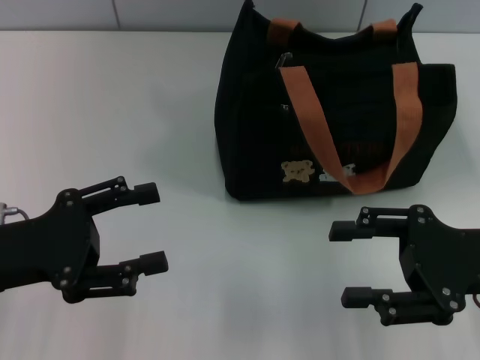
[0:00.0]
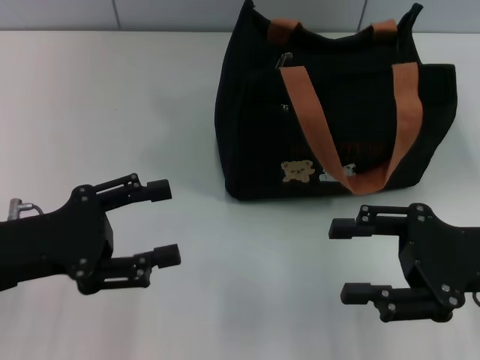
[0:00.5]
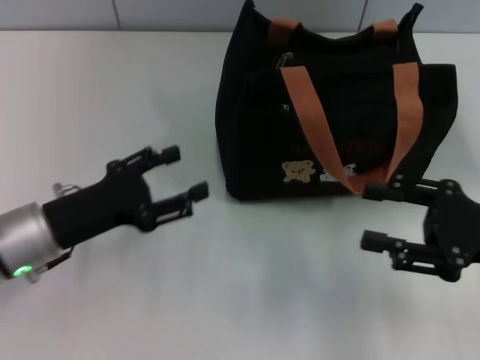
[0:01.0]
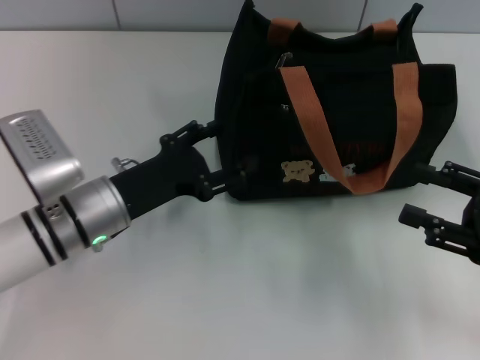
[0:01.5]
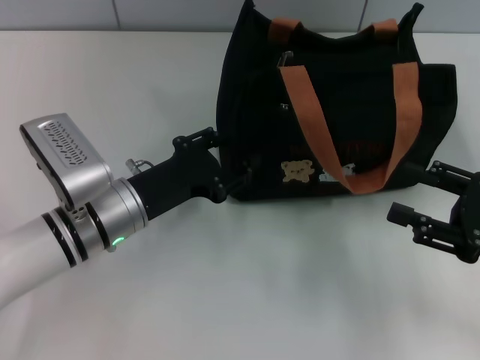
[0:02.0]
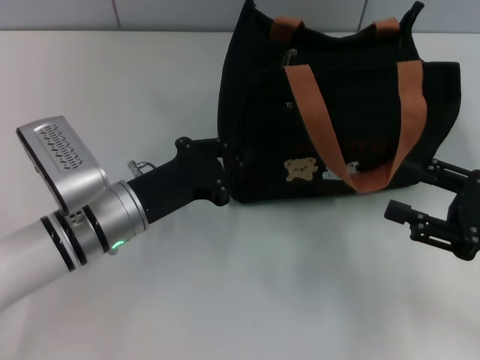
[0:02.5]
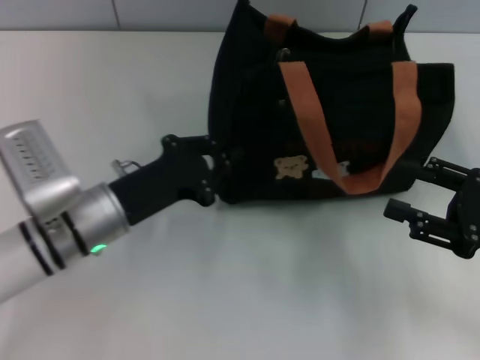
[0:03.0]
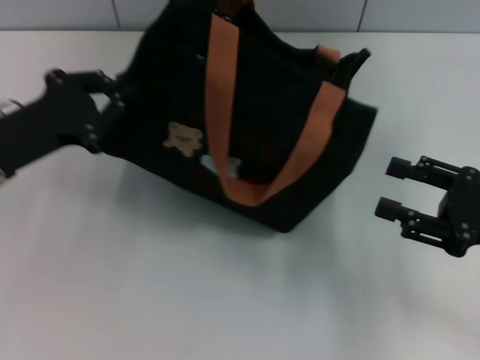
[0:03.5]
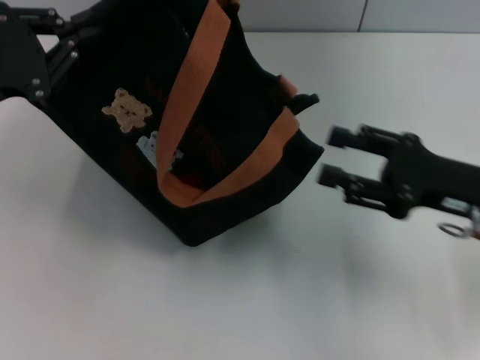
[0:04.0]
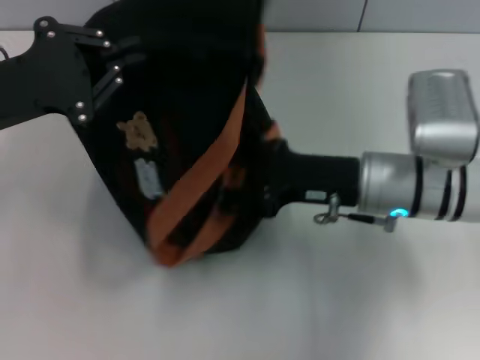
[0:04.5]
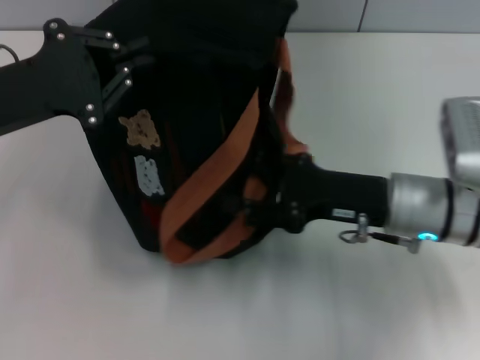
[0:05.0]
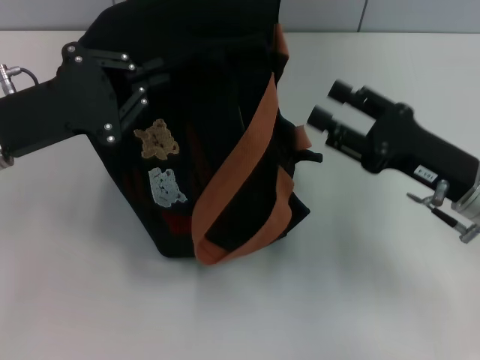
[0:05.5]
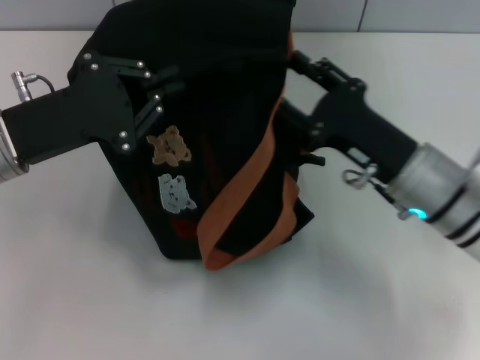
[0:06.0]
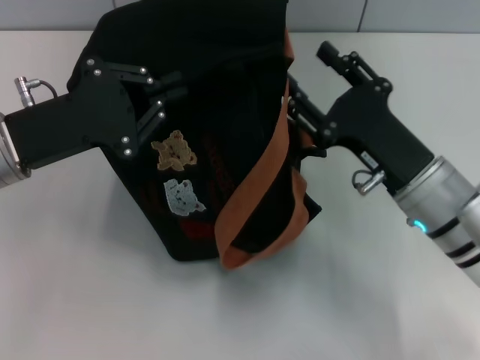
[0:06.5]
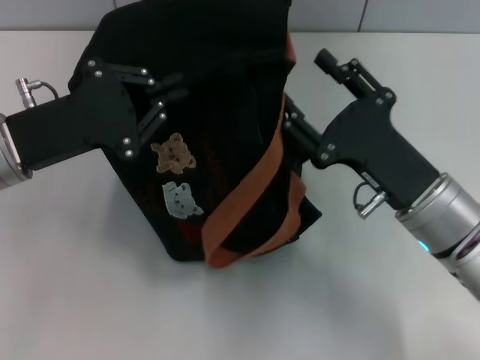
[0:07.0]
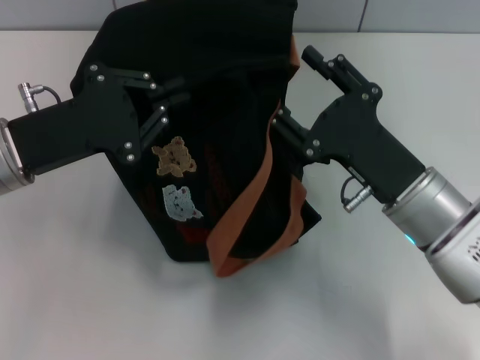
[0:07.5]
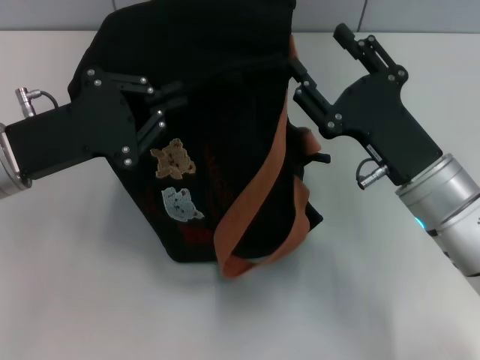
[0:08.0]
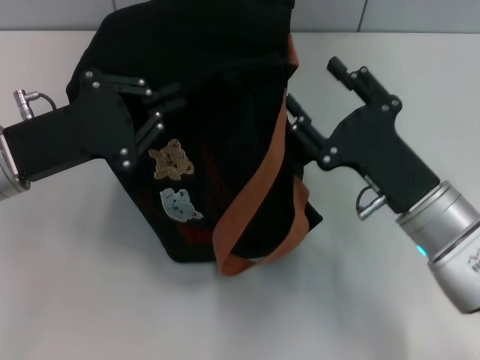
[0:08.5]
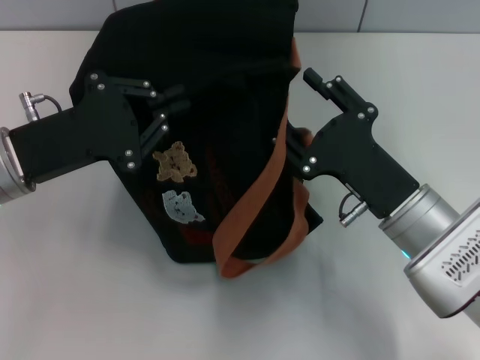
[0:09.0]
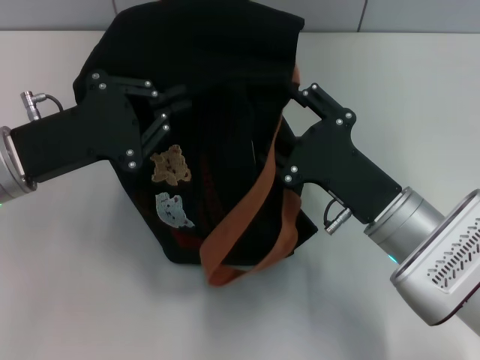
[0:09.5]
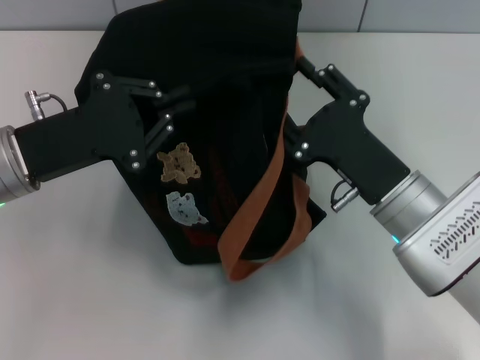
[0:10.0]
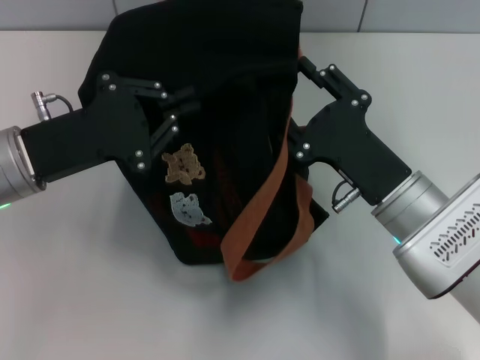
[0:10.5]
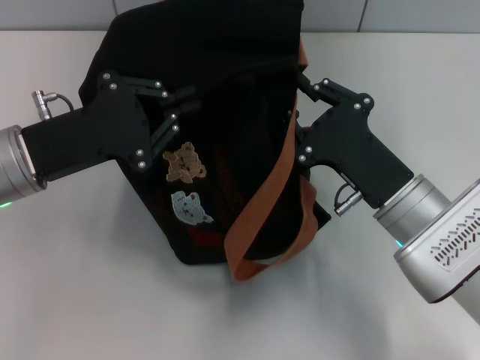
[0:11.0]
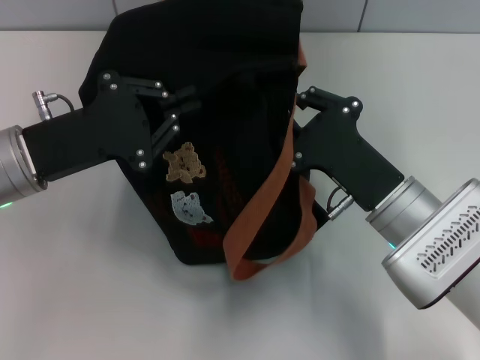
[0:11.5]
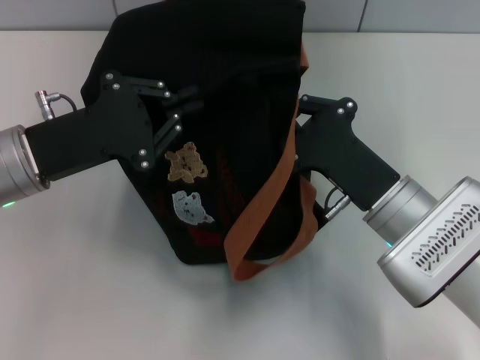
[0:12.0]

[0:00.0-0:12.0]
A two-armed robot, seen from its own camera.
0:00.0 to 0:02.0: The right gripper travels to the right by some 5 cm. Meanwhile the left gripper moves to the right, forward and downward, some 15 cm.
0:02.0 to 0:04.0: The left gripper heads to the left and upward, covering approximately 20 cm, and closes; the right gripper travels to the left by some 5 cm.
0:04.0 to 0:06.0: The left gripper heads to the right, covering roughly 5 cm; the right gripper swings left and right, roughly 10 cm each way, with 2 reversals.
0:08.0 to 0:10.0: There are only small adjustments of the grippers.
0:10.0 to 0:12.0: The right gripper closes.

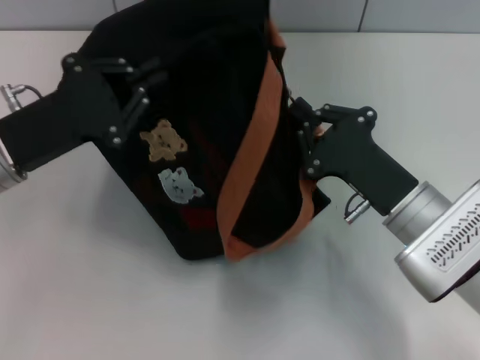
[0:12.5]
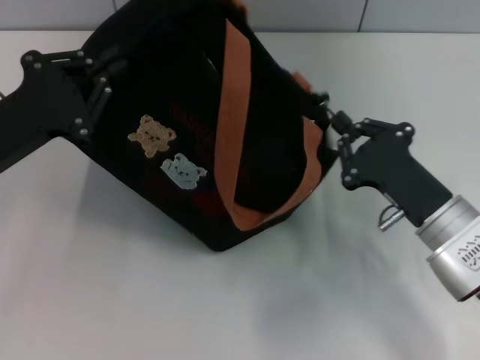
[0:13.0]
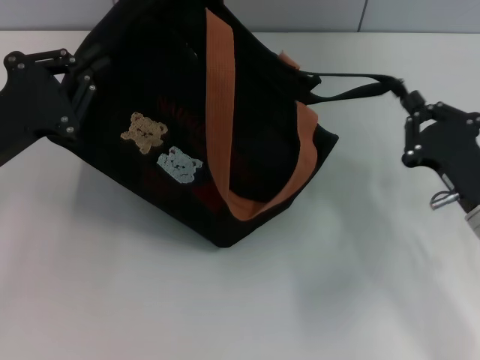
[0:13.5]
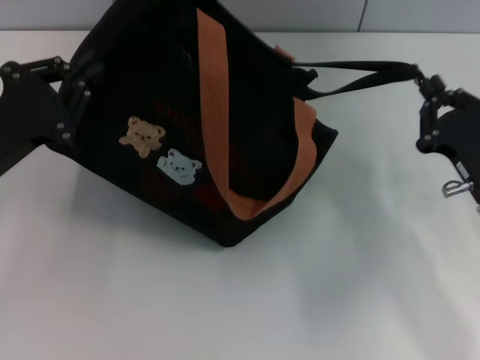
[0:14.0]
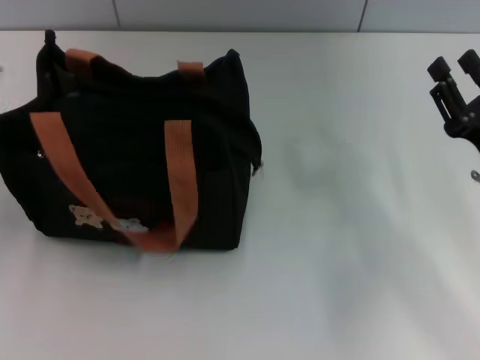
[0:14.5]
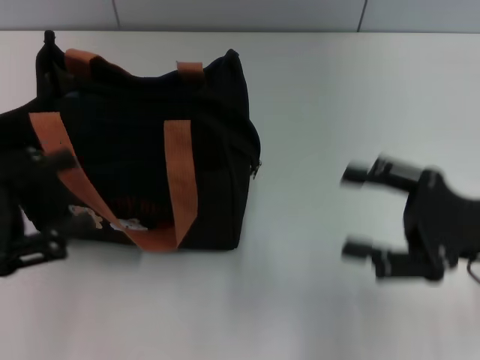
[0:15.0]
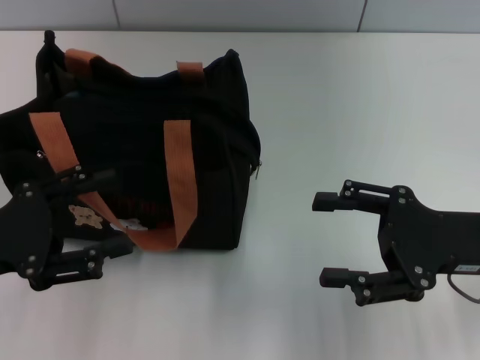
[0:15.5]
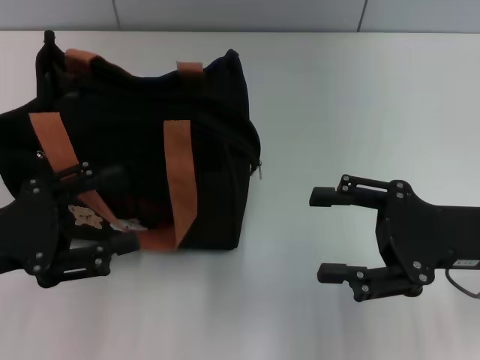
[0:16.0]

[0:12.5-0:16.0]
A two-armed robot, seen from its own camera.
0:12.5 to 0:14.5: The left gripper heads backward and to the left, covering some 10 cm. Meanwhile the right gripper heads to the right, covering some 10 cm.
0:14.5 to 0:16.0: The right gripper changes place by approximately 5 cm, and opens, while the left gripper opens.

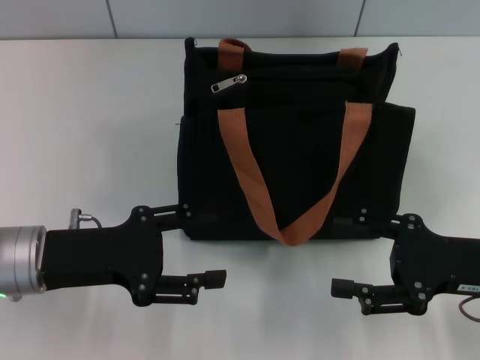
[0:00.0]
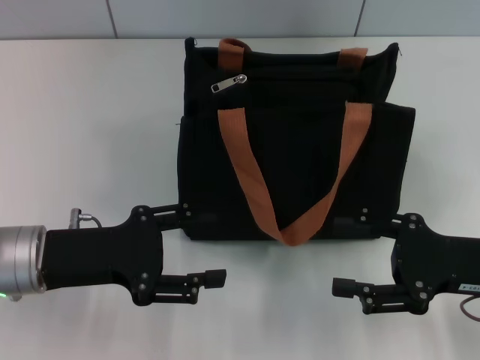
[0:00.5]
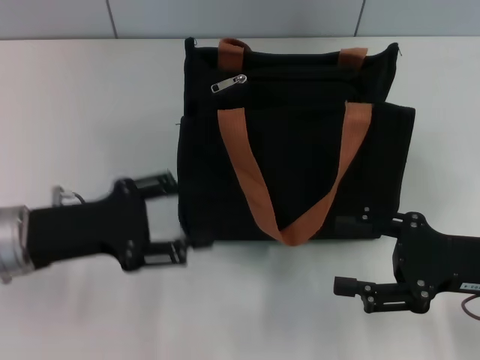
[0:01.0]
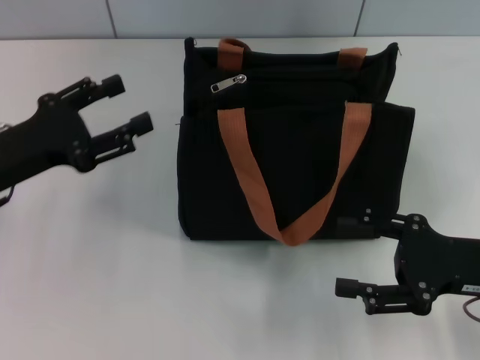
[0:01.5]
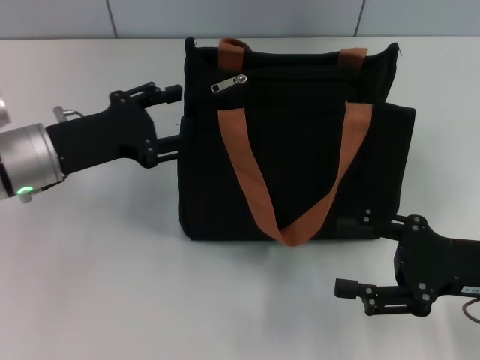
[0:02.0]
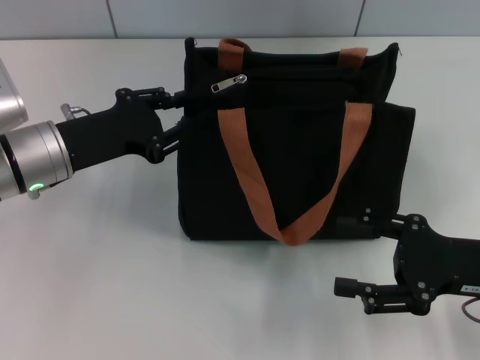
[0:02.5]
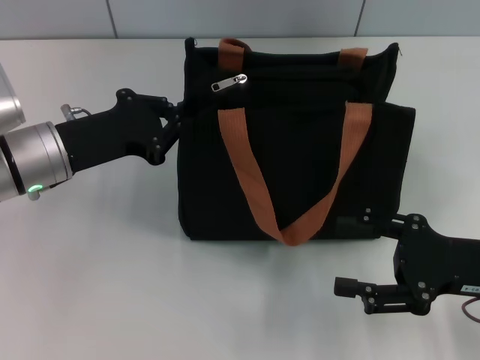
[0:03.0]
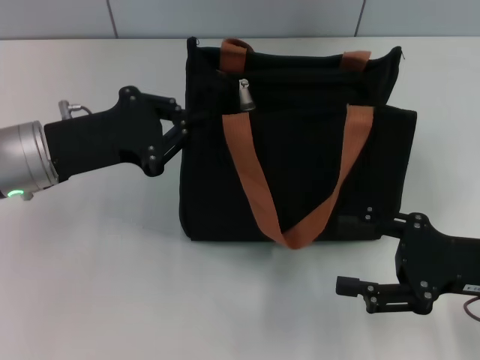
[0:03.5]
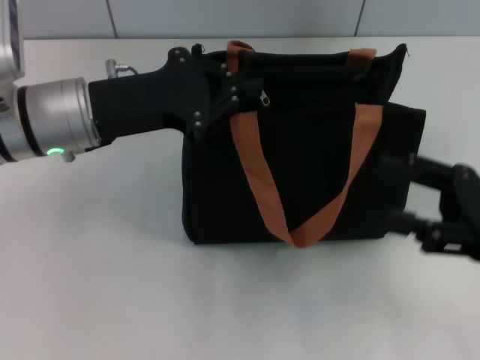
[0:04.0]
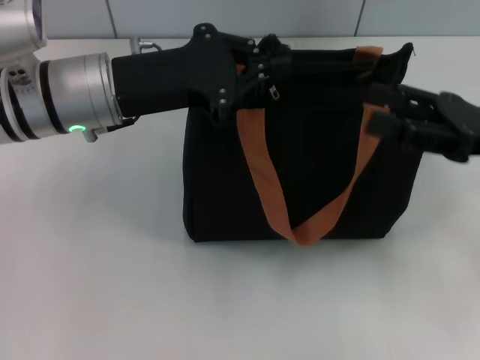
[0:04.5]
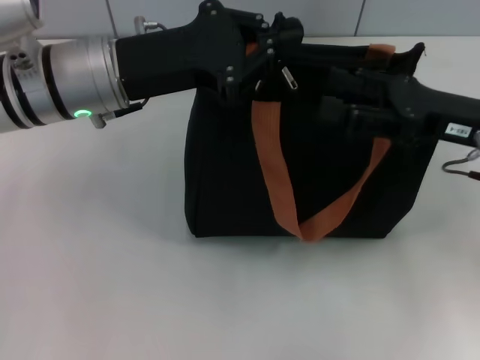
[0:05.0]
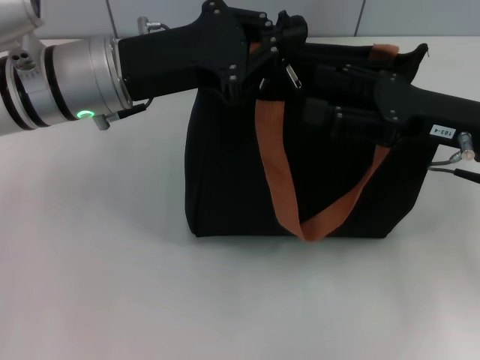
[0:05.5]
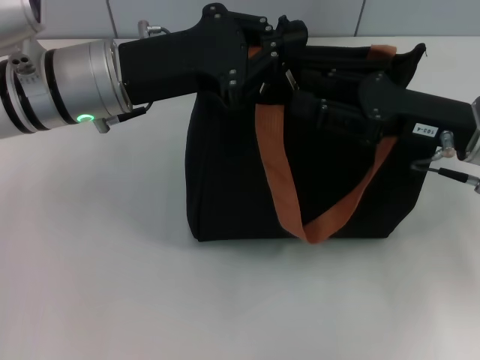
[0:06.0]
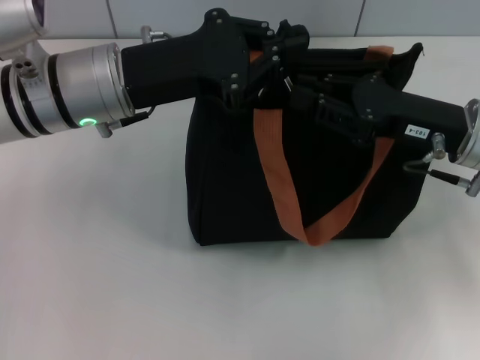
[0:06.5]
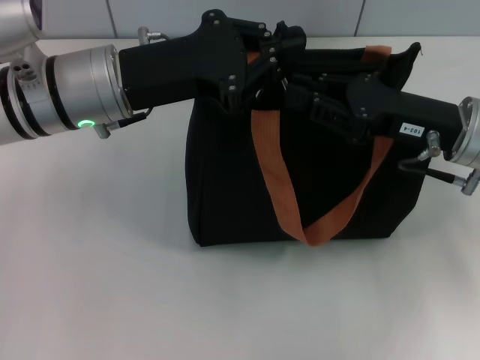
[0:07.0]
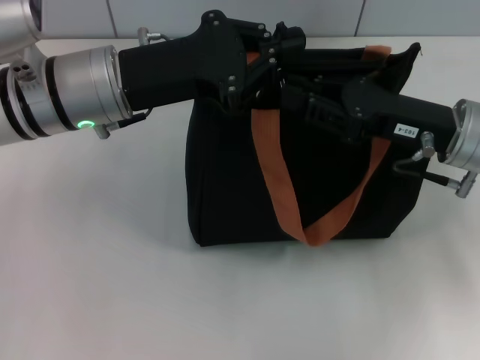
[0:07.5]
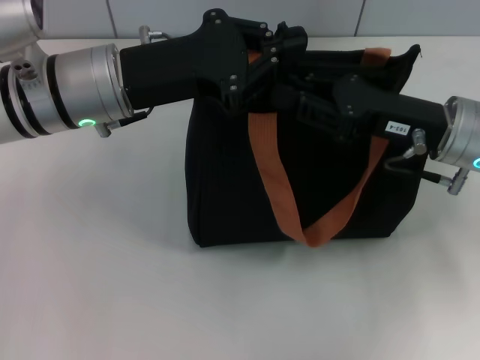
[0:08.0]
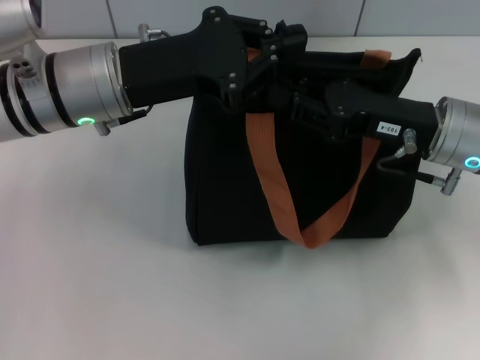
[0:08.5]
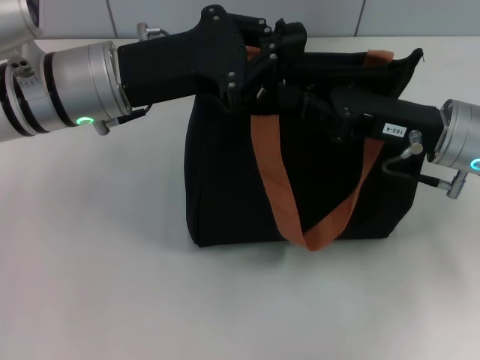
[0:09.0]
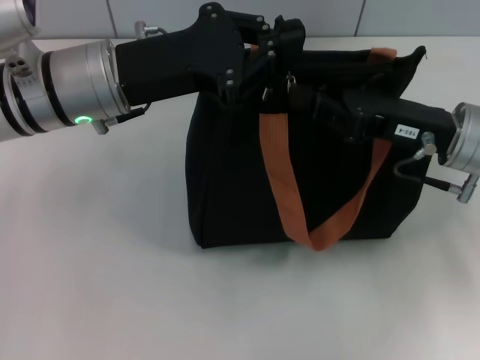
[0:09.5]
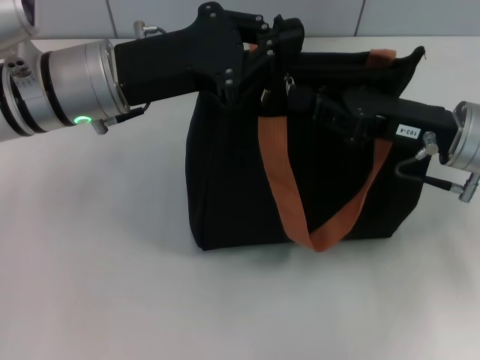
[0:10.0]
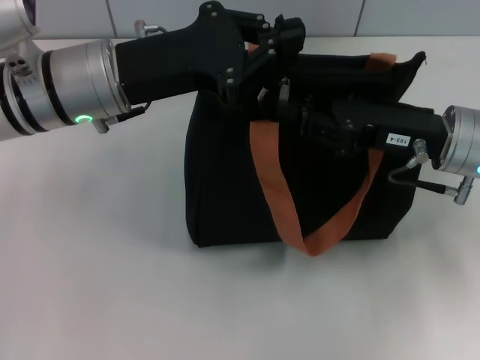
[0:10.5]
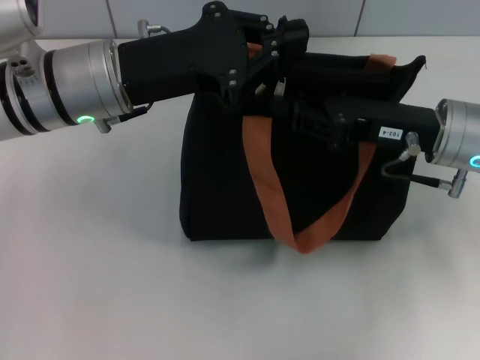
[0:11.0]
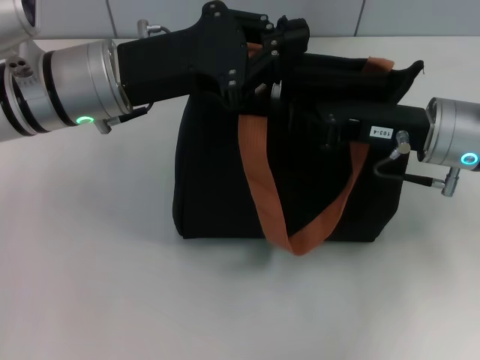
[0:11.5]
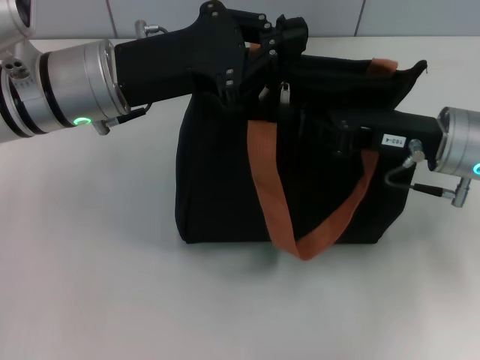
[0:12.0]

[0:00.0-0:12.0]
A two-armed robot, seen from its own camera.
0:00.0 to 0:02.0: The left gripper shifts about 10 cm forward.
0:02.0 to 0:04.0: The left gripper moves roughly 5 cm, and closes.
0:04.0 to 0:06.0: The right gripper shifts approximately 10 cm forward and to the left.
0:06.0 to 0:08.0: The right gripper closes its fingers.
0:08.0 to 0:12.0: The grippers make only small movements.
